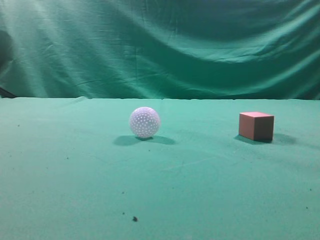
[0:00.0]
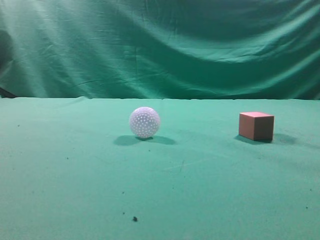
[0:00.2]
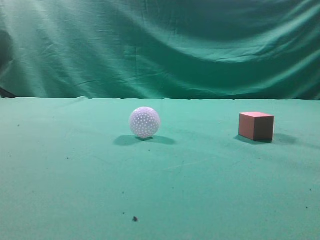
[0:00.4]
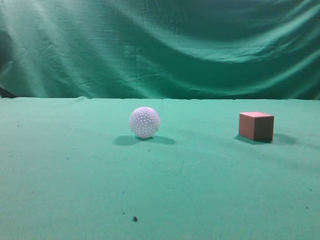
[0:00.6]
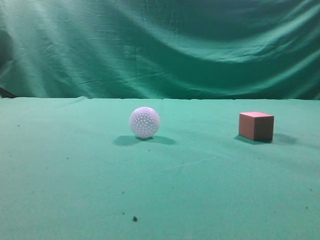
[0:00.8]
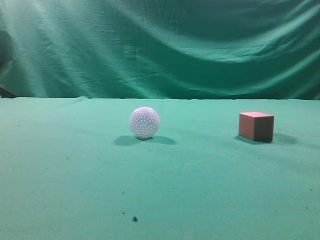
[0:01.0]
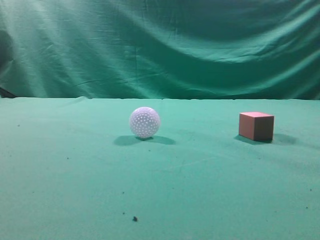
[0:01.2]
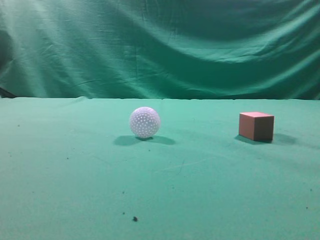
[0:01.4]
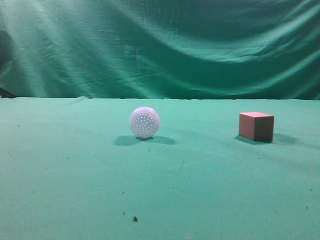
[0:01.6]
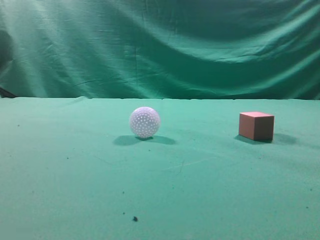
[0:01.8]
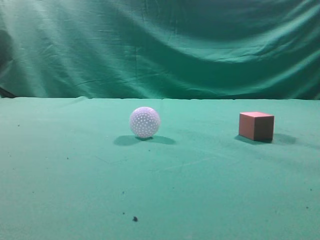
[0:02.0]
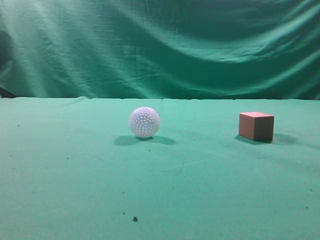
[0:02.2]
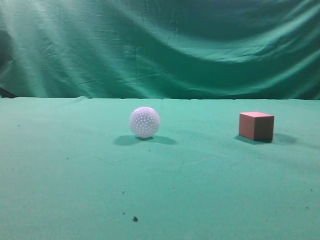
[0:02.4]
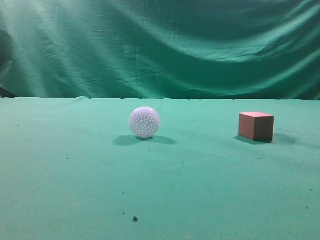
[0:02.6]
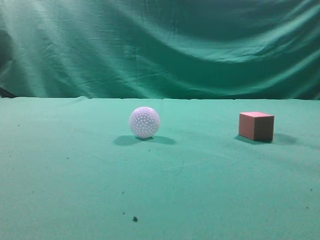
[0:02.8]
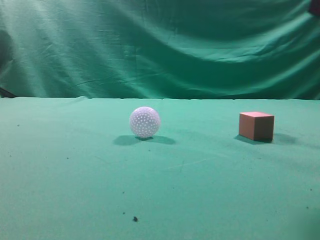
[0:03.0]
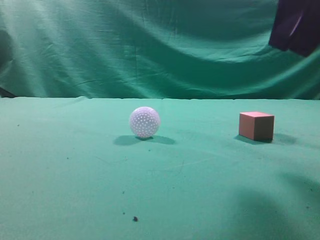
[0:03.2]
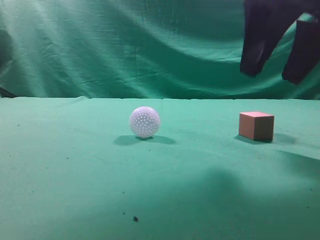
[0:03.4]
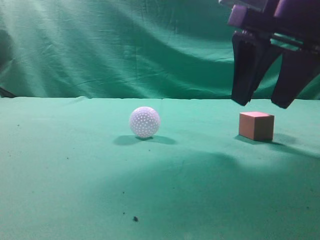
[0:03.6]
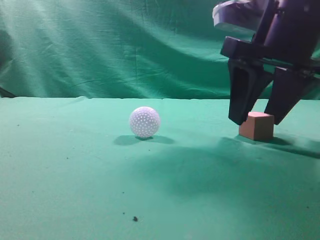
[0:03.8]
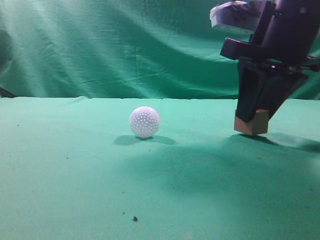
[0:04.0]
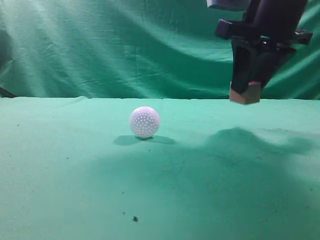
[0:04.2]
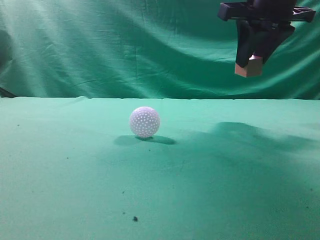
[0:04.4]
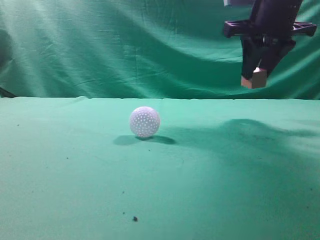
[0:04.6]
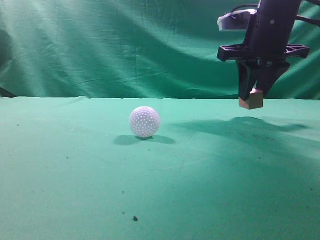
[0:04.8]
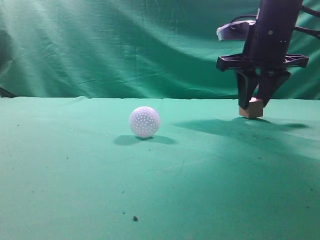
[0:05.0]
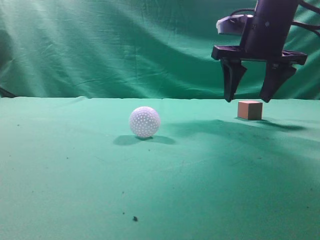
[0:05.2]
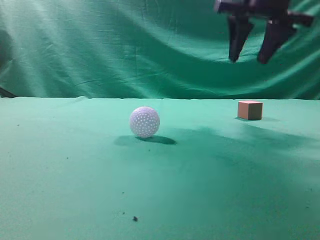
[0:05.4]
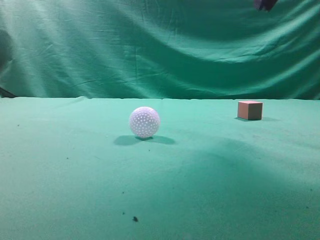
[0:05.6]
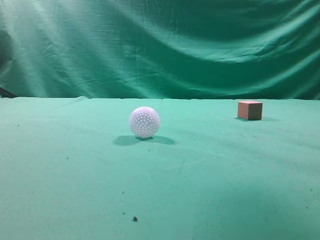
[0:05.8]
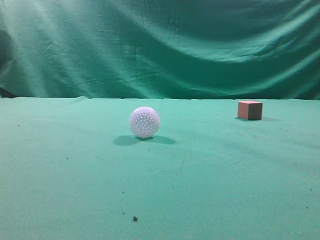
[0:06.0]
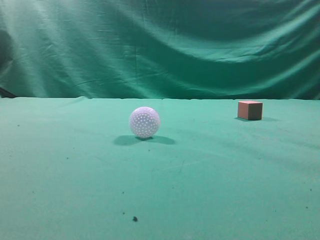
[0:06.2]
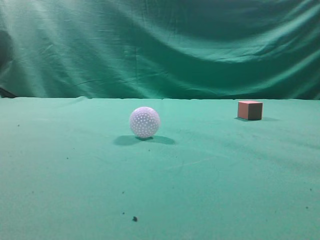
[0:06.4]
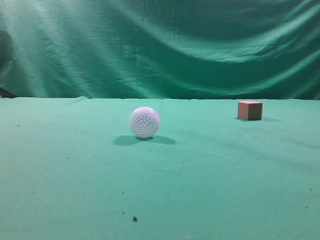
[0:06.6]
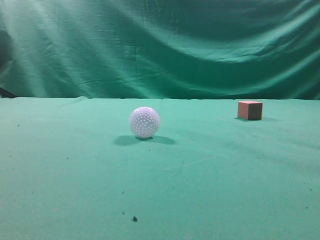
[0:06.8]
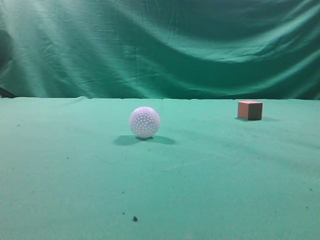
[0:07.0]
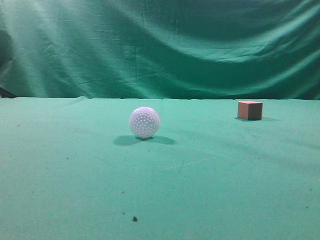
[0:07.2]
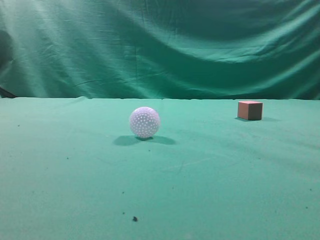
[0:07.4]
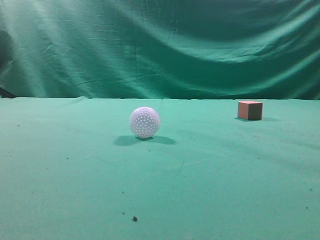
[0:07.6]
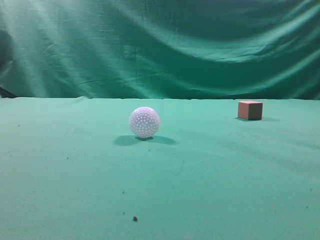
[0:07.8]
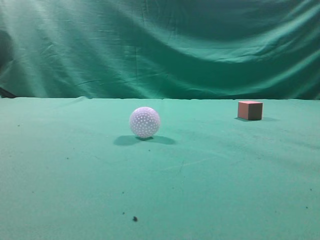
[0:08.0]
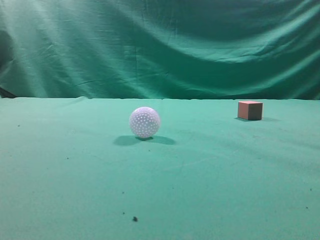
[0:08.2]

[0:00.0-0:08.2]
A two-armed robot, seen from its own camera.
Task of the whole recording: pick up the cube block and place it in another position on the table.
Step, 0:00.0 to 0:04.0: Pick up the small cube.
Step, 0:04.2 to 0:05.0: Place the small cube on the ahead of the table.
0:01.6 to 0:03.2: The right gripper is displaced forward and to the left by roughly 20 cm, and opens its fingers.
0:03.2 to 0:05.0: The right gripper travels forward by roughly 15 cm.
0:05.0 to 0:06.6: The right gripper travels backward and upward by roughly 35 cm, and closes.
